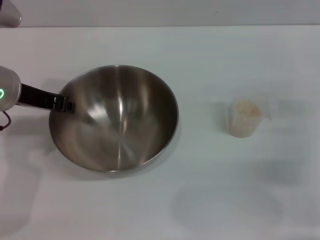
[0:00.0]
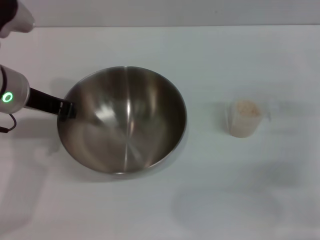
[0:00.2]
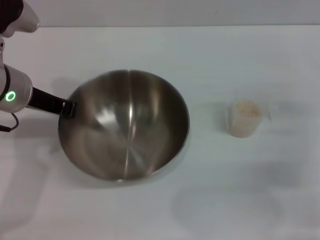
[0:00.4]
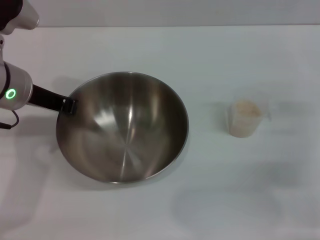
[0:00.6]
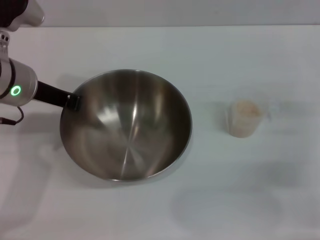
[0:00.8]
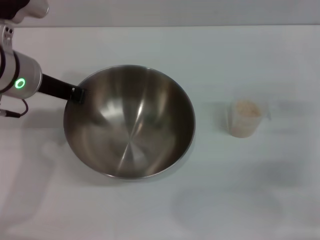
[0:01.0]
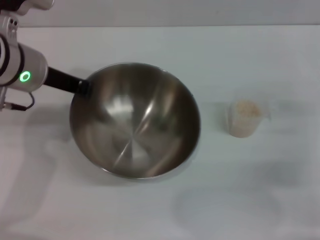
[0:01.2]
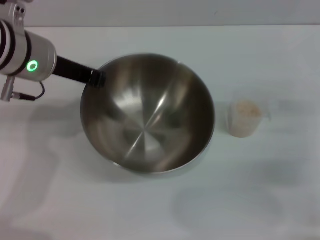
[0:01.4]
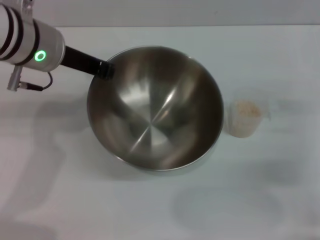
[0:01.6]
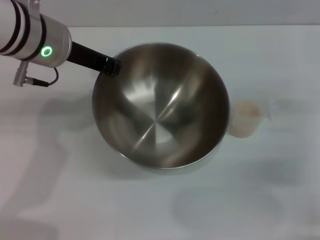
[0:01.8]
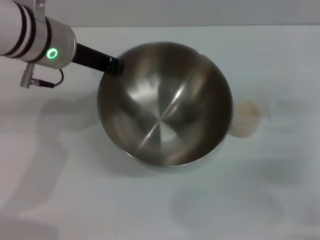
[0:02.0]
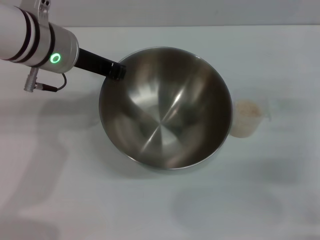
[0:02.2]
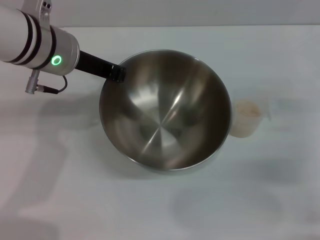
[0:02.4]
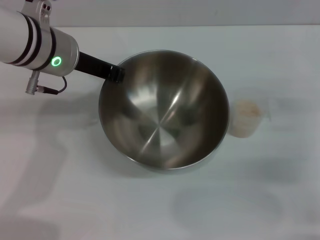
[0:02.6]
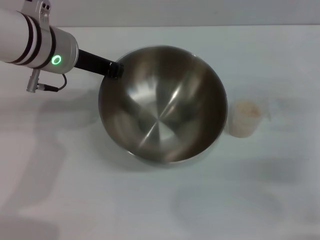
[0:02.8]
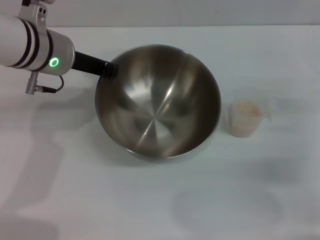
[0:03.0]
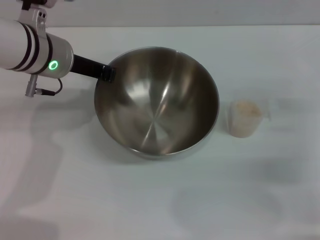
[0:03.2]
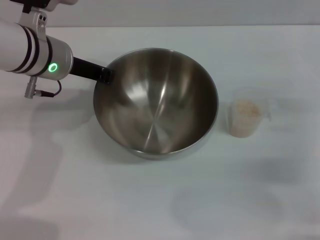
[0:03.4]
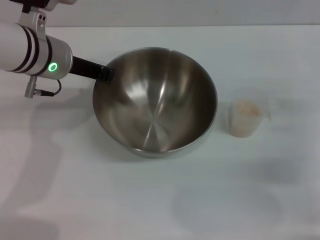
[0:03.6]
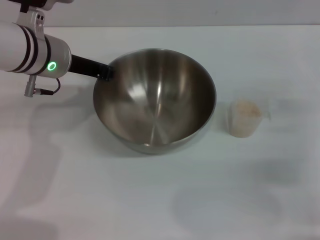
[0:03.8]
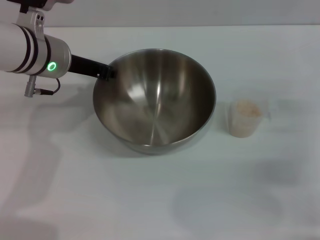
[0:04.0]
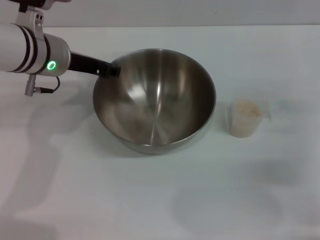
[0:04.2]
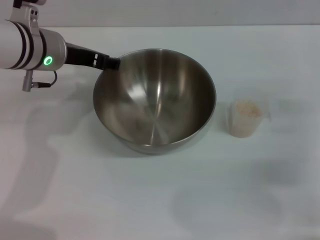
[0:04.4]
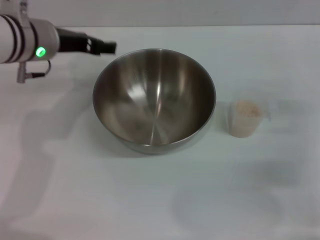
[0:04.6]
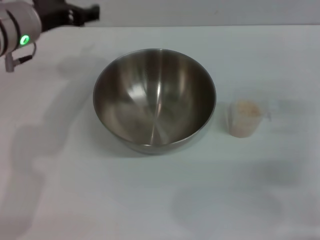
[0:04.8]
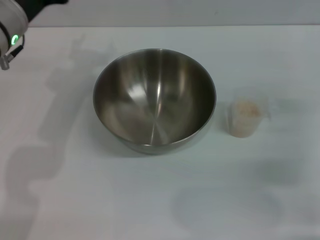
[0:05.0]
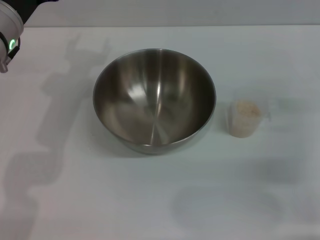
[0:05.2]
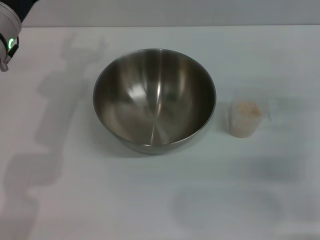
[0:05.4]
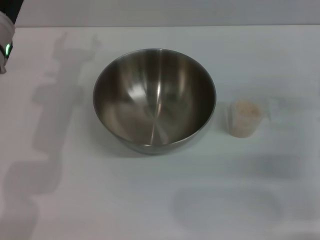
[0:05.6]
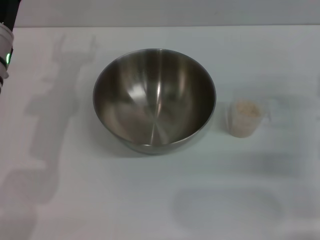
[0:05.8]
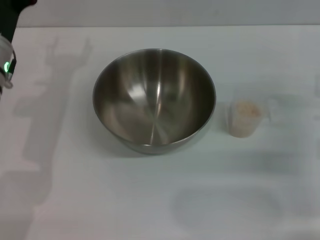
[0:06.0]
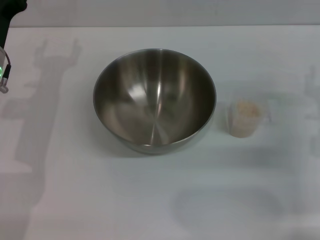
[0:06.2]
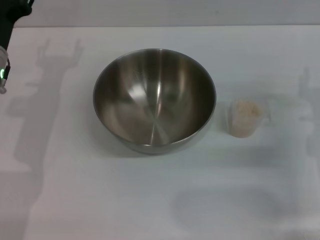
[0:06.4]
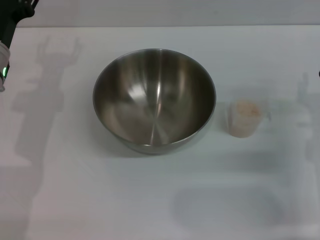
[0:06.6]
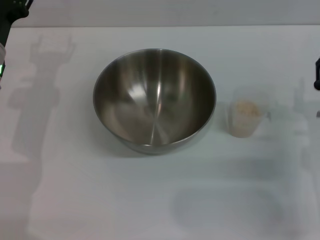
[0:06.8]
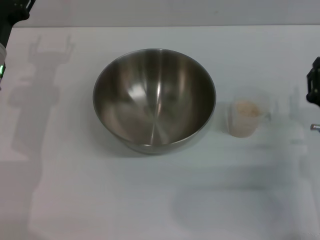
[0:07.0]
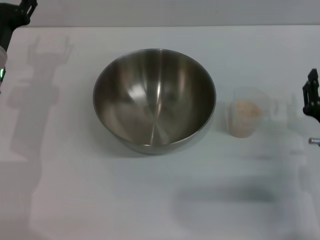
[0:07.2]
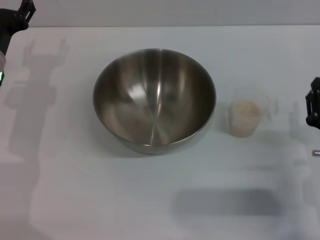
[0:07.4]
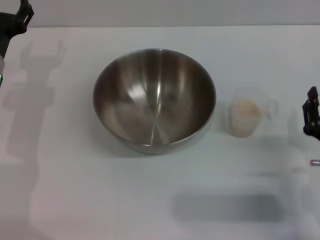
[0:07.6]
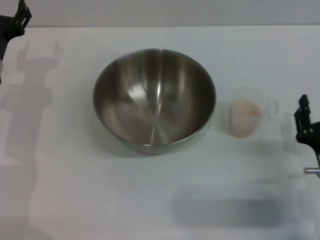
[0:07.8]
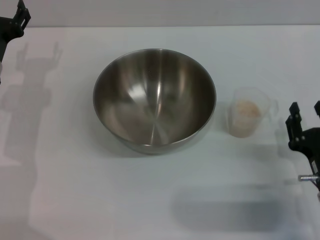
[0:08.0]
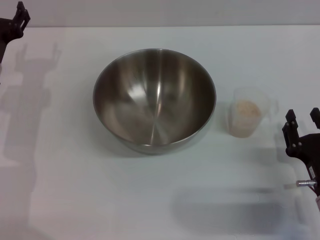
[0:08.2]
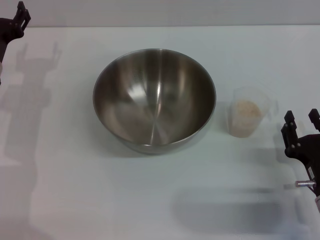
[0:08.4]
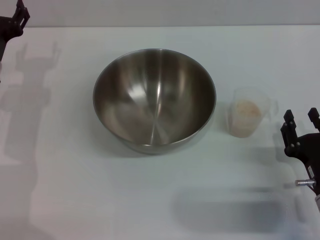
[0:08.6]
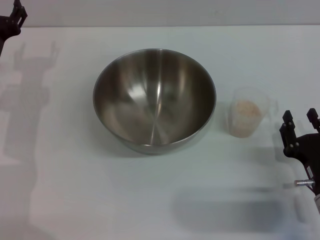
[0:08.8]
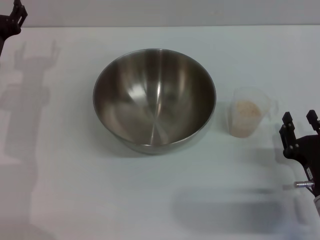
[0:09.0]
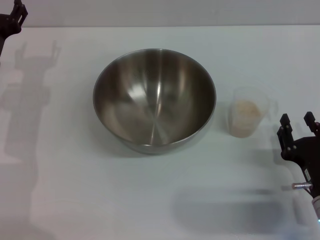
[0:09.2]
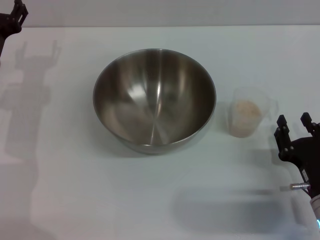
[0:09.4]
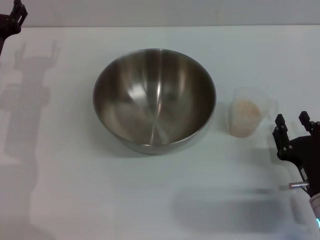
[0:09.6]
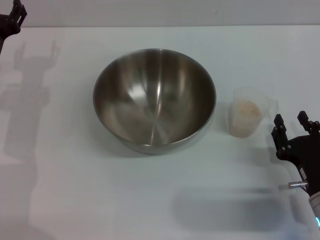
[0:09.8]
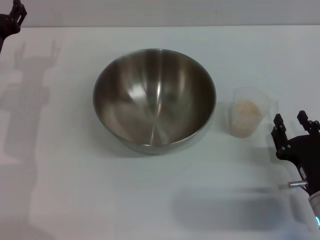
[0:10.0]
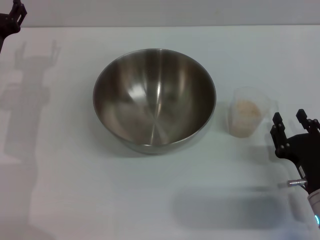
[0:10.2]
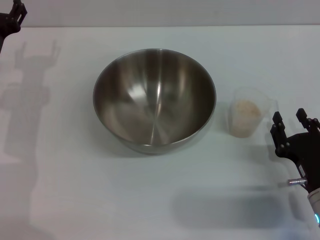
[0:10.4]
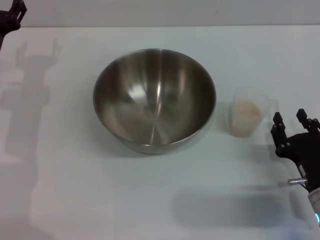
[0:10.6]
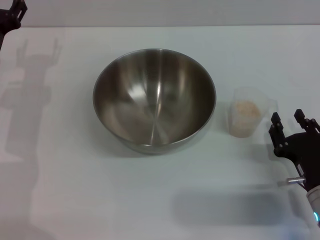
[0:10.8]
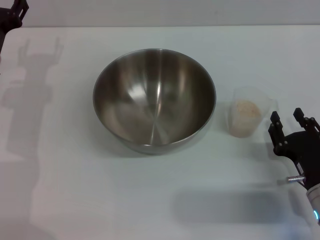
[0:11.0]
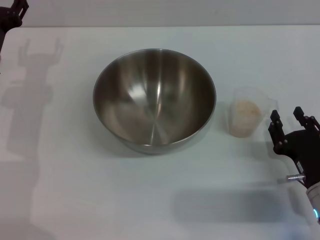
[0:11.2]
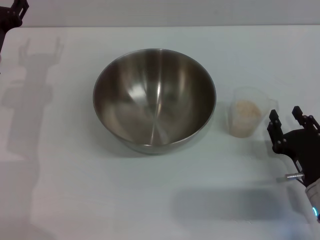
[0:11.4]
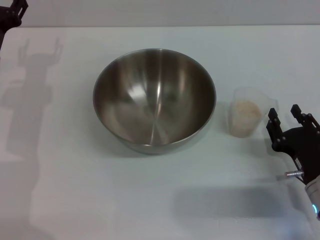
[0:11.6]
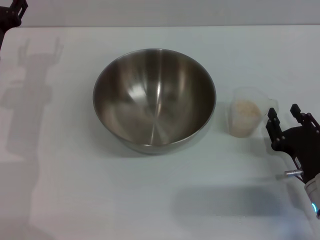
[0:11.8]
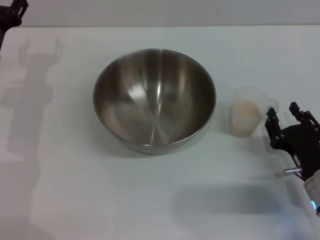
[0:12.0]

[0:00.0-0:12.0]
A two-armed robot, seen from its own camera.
Task of the whole recording: Place the bowl in the middle of the table with one hand and pour the rice from the grain cup into it with the other hand.
Step, 0:01.8 to 0:04.4: Place the bowl in the center of view with the left gripper.
0:00.0 to 0:01.6: The left gripper goes approximately 5 cm to the right, and closes up.
0:01.6 to 0:03.0: The grippers move only a little.
0:03.0 to 0:04.4: The left gripper opens.
0:04.4 to 0:06.0: The left gripper shifts roughly 5 cm to the left.
0:06.0 to 0:07.6: The left gripper shifts by roughly 5 cm; the right gripper goes roughly 10 cm backward.
0:07.6 to 0:09.0: The grippers stay close to where they were, moving slightly.
0:09.0 to 0:10.4: Both grippers stay about where they are.
0:10.4 to 0:12.0: The grippers move only a little.

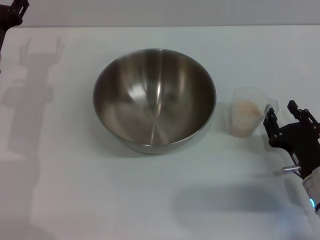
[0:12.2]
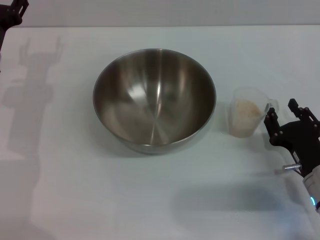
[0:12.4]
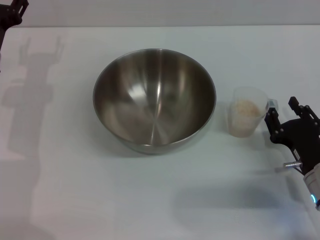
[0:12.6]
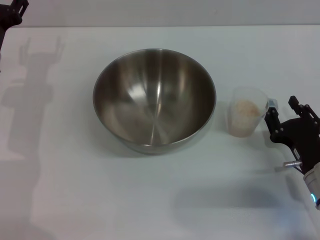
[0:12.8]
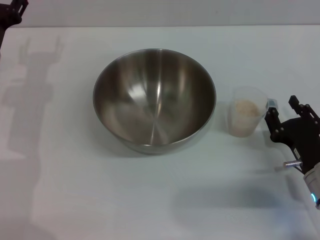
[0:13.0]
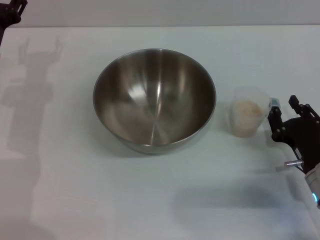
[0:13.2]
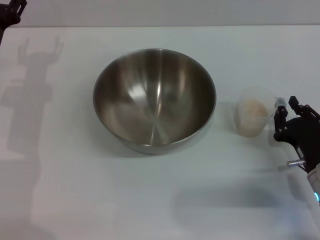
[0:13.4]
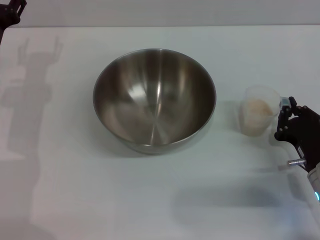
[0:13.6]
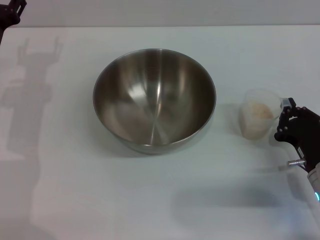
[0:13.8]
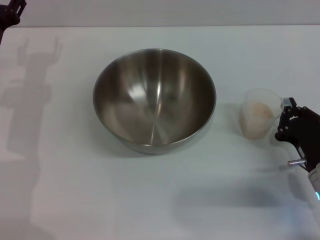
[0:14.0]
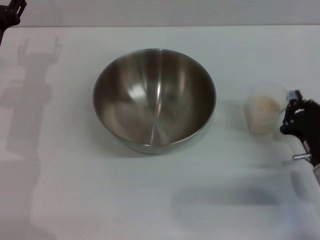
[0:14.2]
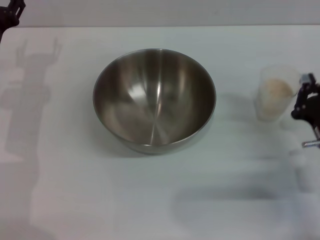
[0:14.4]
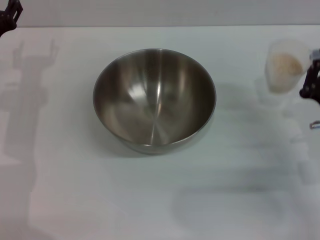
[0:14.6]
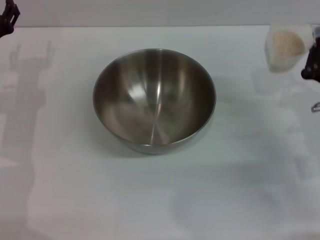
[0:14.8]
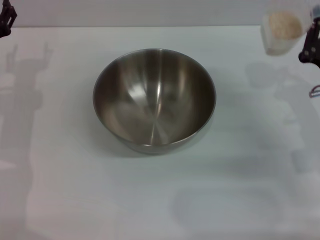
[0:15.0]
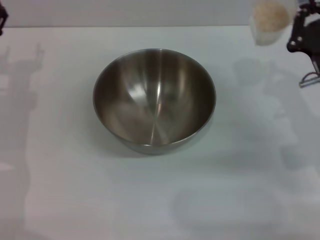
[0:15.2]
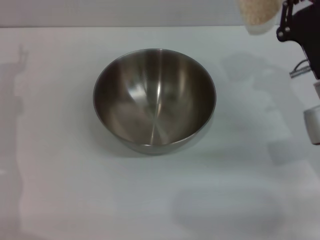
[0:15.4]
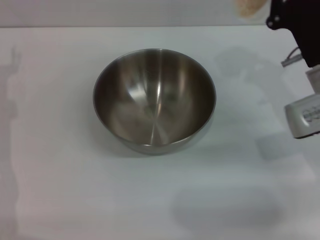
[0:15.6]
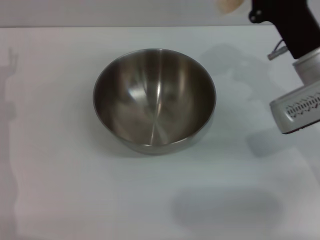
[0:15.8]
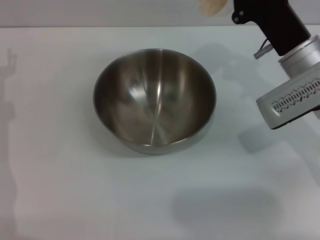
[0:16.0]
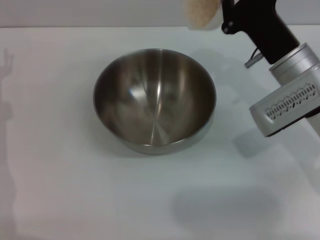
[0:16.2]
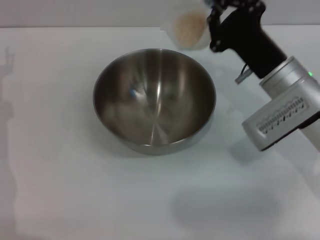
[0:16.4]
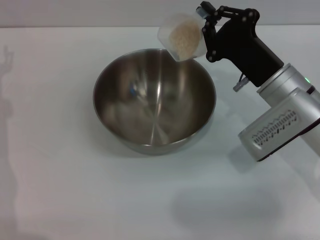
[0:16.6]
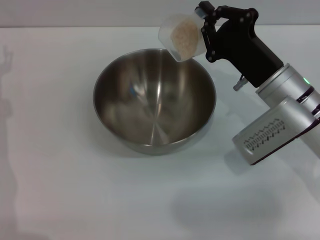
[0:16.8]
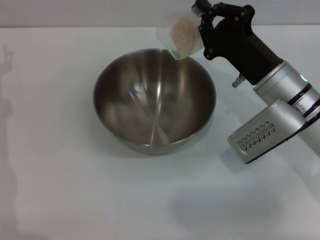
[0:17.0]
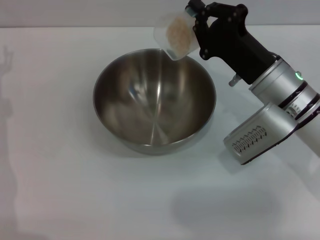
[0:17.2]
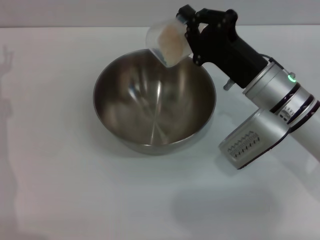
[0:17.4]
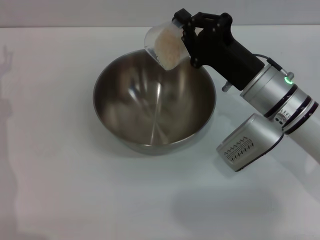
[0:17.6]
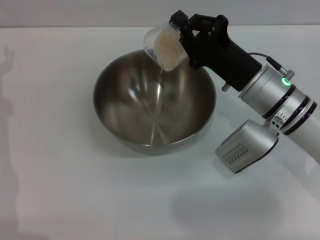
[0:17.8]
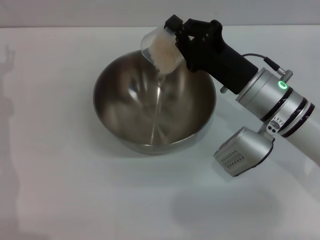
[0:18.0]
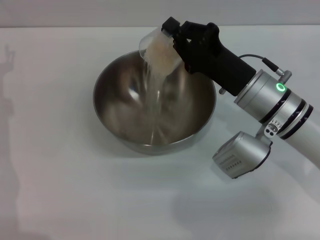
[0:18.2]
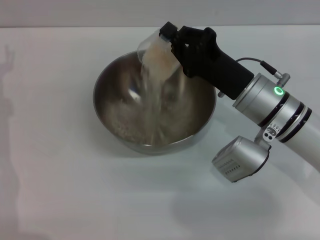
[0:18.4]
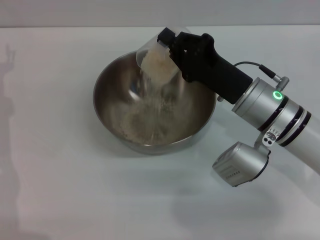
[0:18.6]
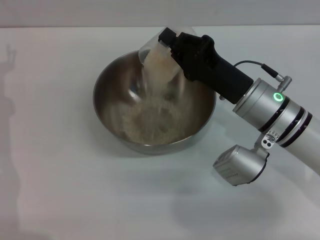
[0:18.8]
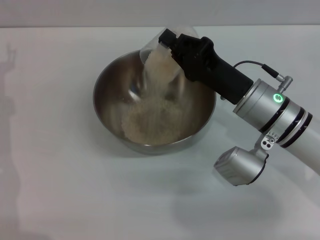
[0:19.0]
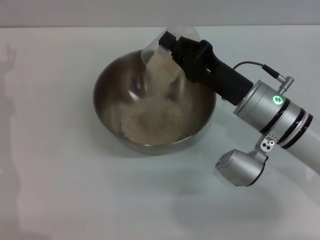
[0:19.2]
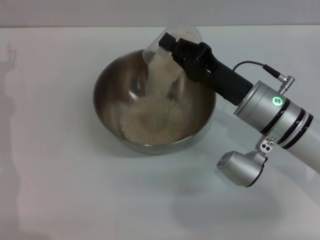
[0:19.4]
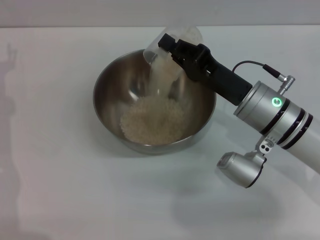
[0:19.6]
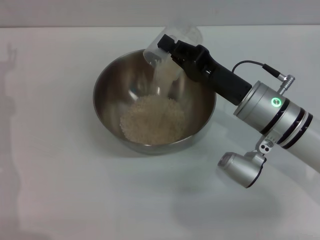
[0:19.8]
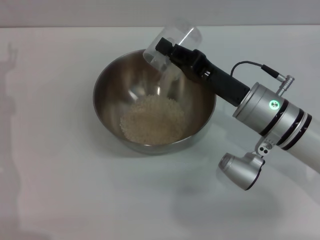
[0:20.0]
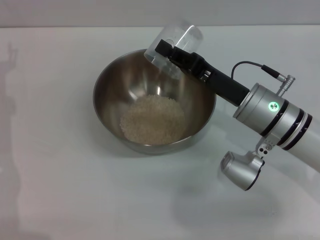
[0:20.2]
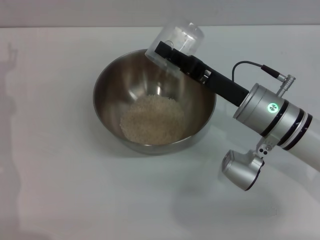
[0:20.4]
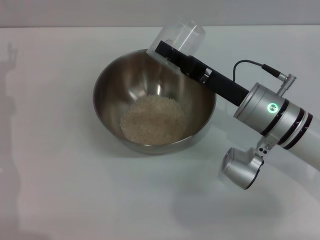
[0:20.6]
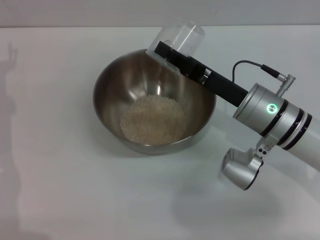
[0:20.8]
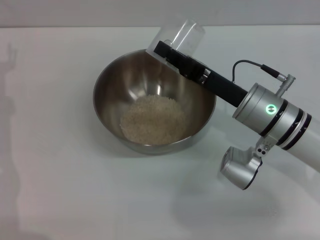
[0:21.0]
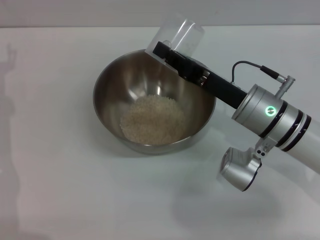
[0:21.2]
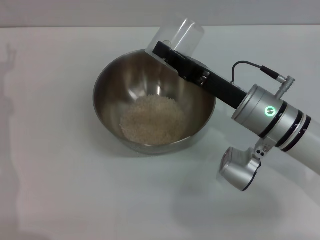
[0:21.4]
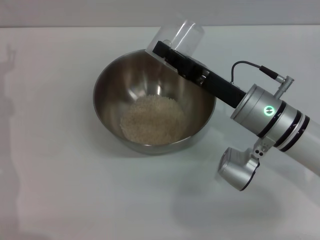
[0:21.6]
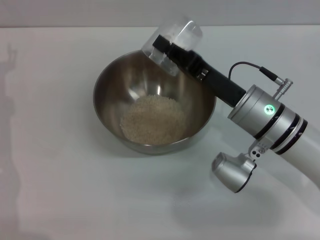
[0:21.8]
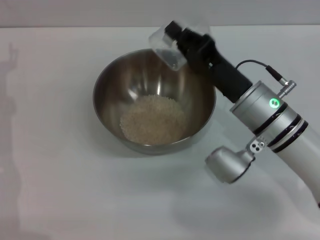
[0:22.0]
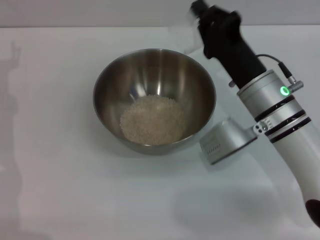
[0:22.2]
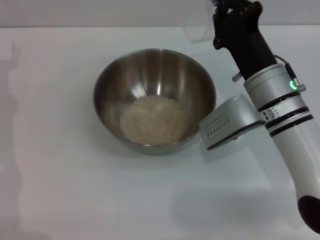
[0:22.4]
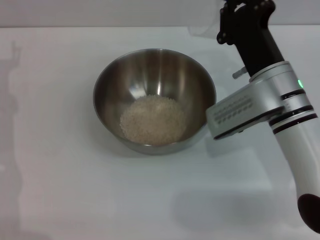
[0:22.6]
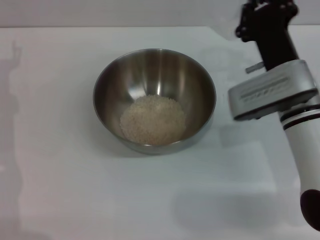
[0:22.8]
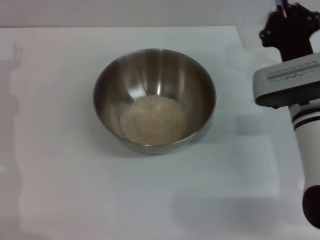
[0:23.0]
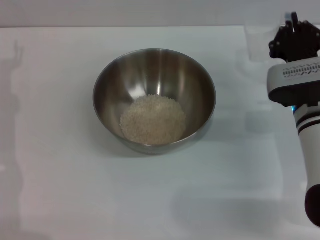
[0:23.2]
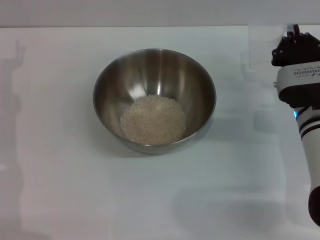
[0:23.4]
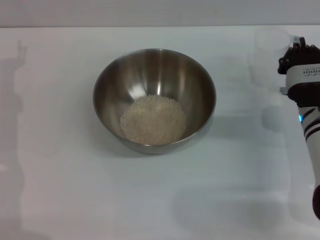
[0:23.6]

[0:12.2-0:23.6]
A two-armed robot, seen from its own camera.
Task of the whole recording: Place the bowl in the middle of the table with one hand and pour the rice from the grain cup into it with the other hand.
Step, 0:12.2 to 0:14.6: Pick up the cup with rice in it with the right gripper.
Step, 0:14.8 to 0:20.6: Pour the rice from the cup into the bowl with the right gripper.
0:12.2 to 0:13.6: The right gripper closes up.
0:13.6 to 0:15.0: The right gripper heads upward and forward, covering some 10 cm, and closes.
0:15.0 to 0:16.4: The right gripper travels to the left and forward by some 10 cm.
0:19.4 to 0:20.8: The grippers stay close to where they were, moving slightly.
0:22.2 to 0:23.6: The right gripper shifts roughly 10 cm to the right.
